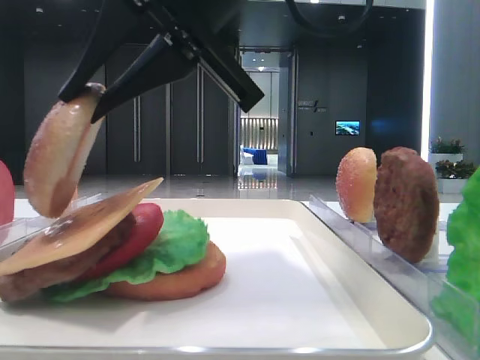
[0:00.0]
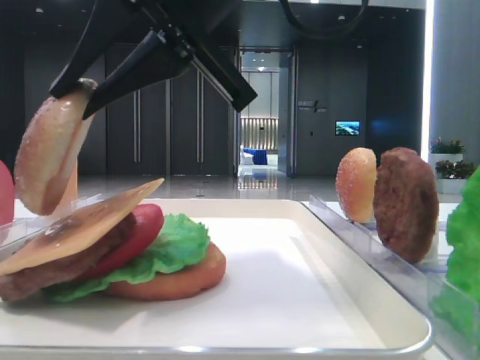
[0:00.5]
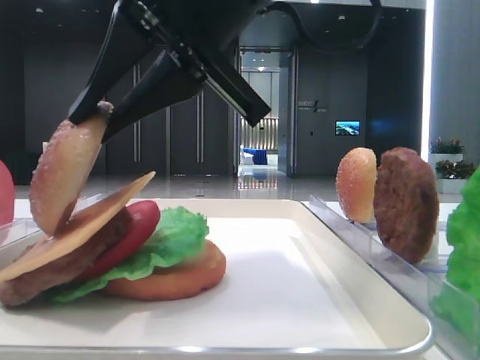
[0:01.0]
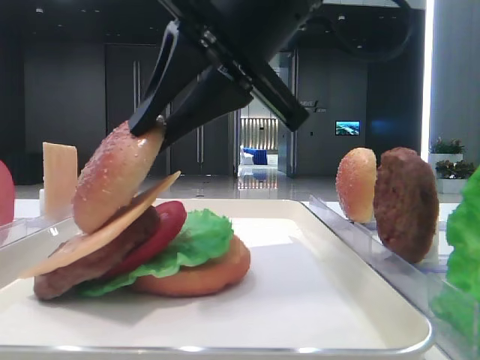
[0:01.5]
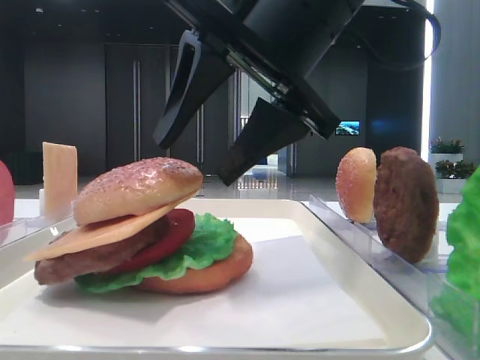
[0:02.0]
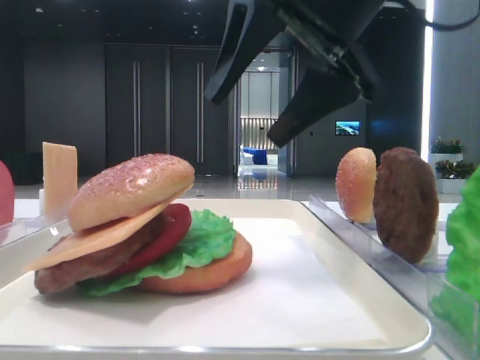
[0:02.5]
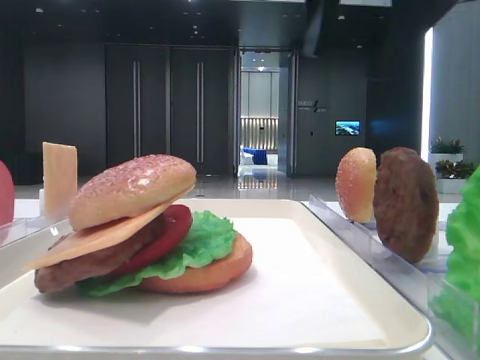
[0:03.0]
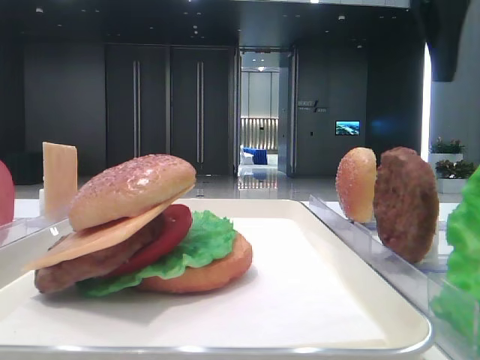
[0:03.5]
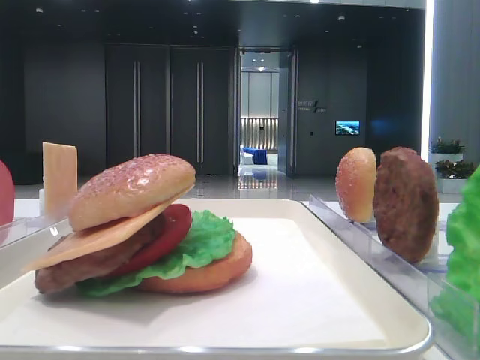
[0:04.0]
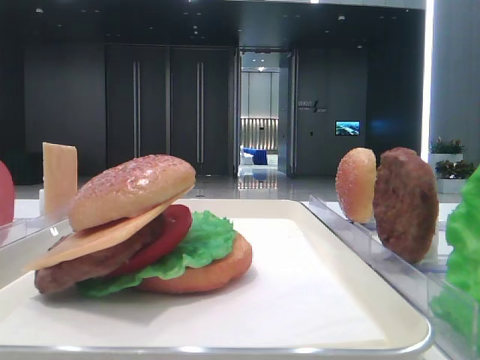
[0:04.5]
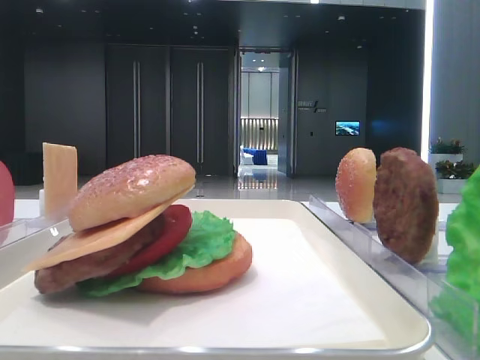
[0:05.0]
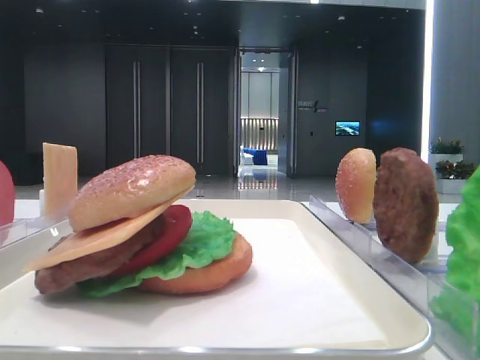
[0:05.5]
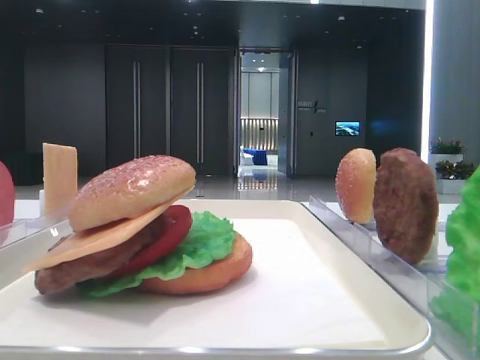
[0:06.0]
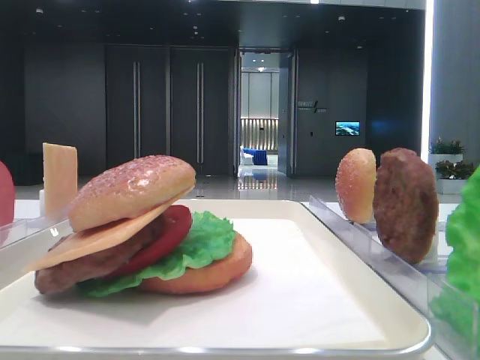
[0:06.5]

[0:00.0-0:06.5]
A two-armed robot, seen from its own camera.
Step, 0.0 to 2.0 s: Place the top bread slice on the cheese with the right hand.
0.0 to 2.0 s: The right gripper travels to the right by some 5 cm, and opens its fingers.
2.0 to 4.5 s: The right gripper travels to the right by approximately 25 cm.

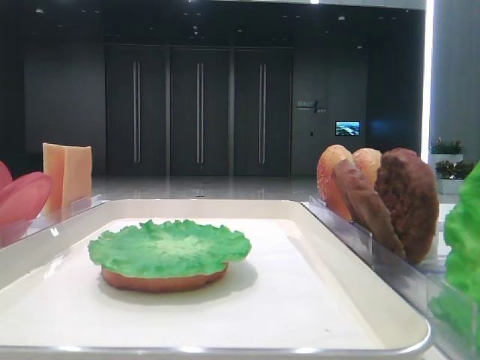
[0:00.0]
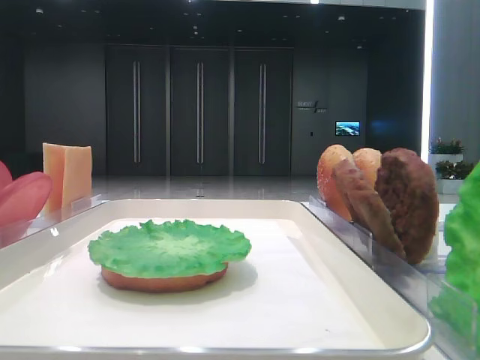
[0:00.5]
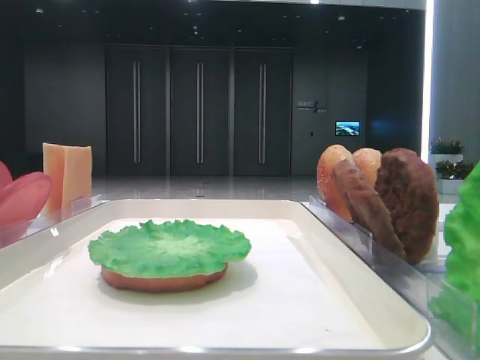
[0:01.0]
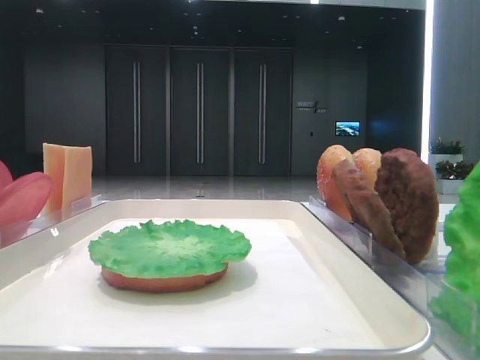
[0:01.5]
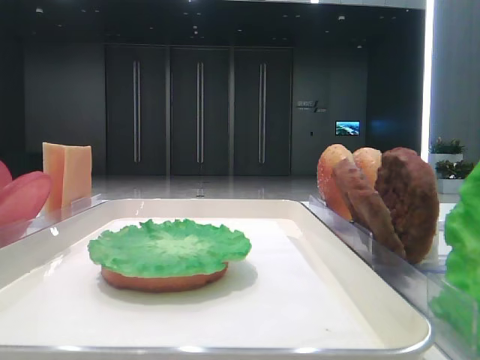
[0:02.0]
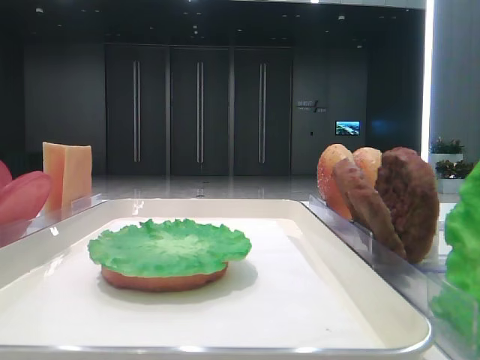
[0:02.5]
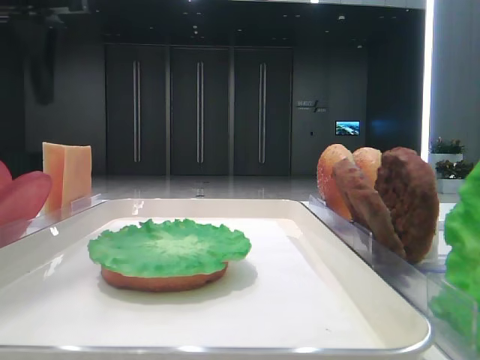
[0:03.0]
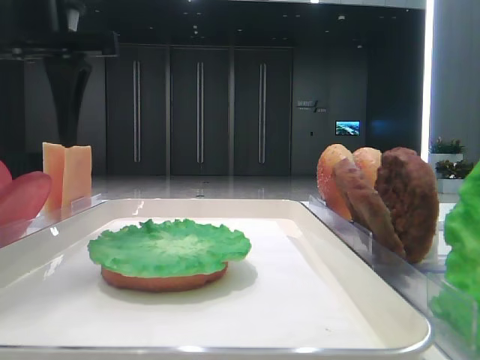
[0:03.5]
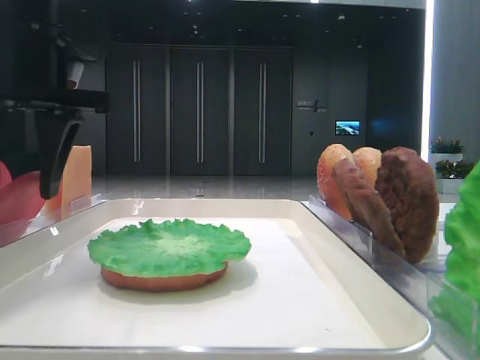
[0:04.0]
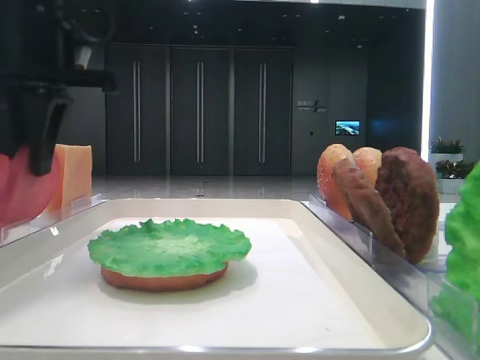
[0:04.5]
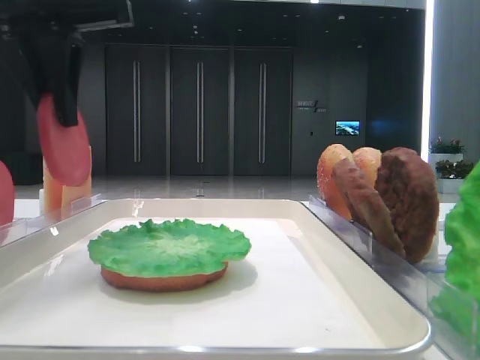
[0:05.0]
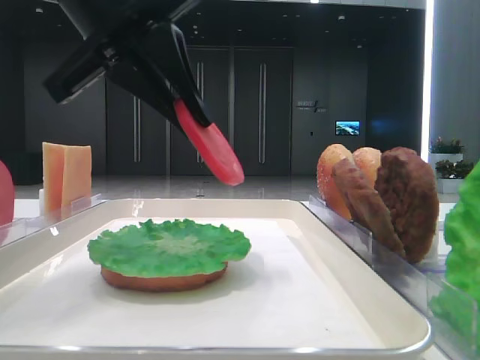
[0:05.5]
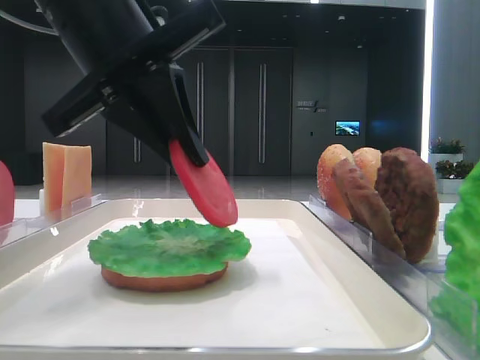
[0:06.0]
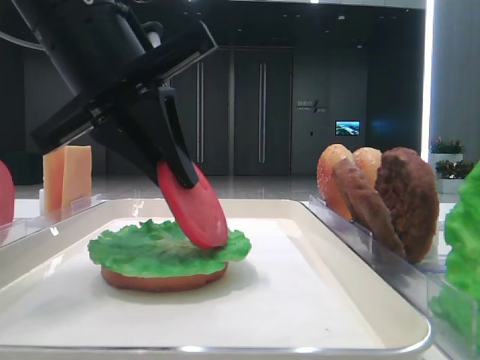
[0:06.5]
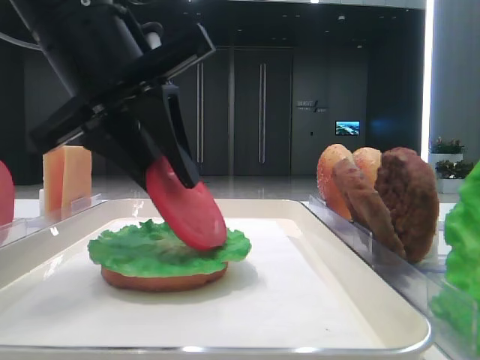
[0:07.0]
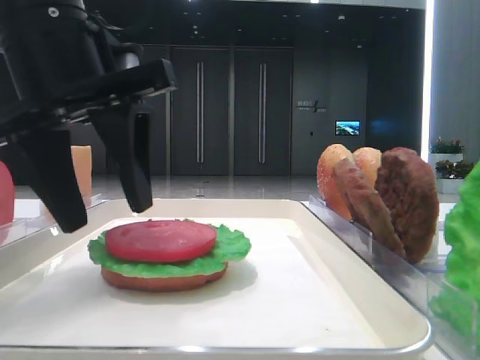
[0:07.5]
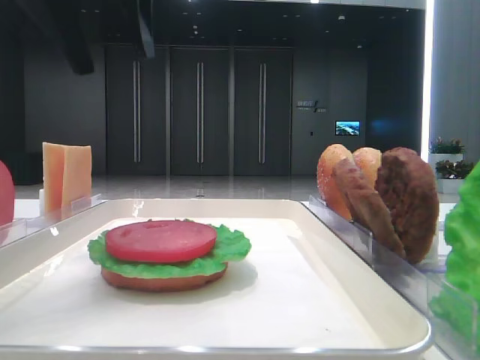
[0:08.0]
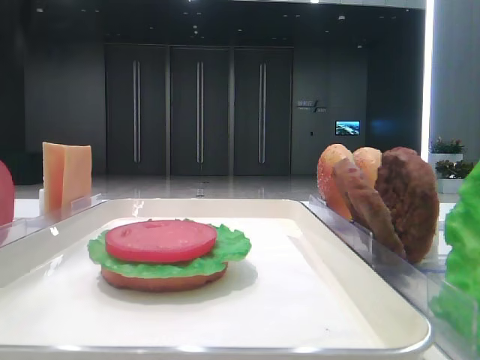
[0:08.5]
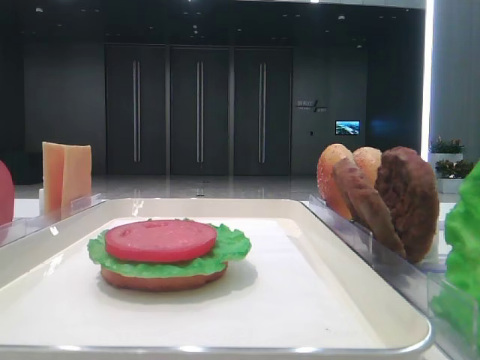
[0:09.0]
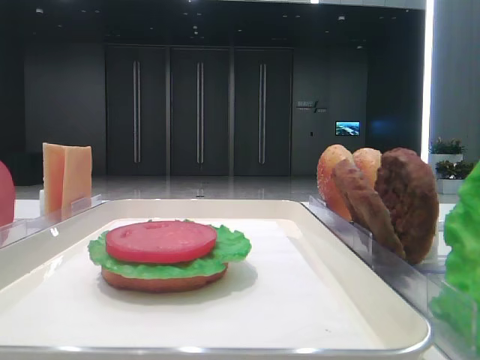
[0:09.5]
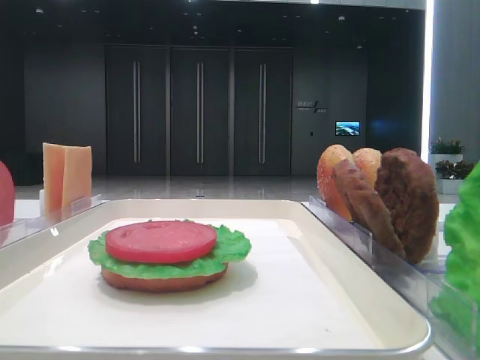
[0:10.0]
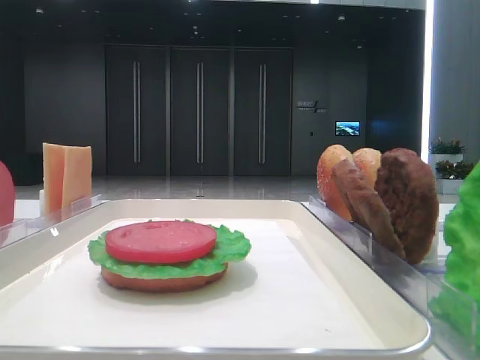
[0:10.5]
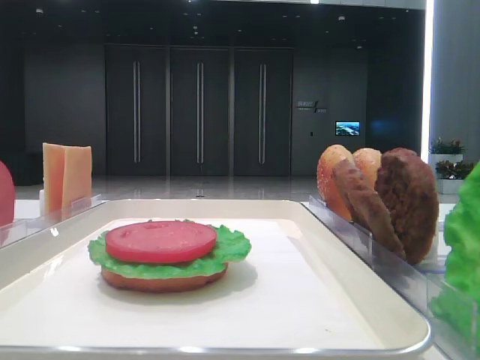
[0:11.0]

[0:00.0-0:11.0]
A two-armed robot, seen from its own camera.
Step, 0.0 to 4.0 s: Pick up the tomato slice with the left hand.
Step, 4.5 to 7.0 s: Place the tomato slice on the lettuce leaf with the left hand.
2.0 to 3.5 s: The left gripper is displaced to the right, forward and downward by about 20 cm.
3.5 to 5.5 s: The left gripper shifts about 5 cm to the right, and closes its fingers.
5.5 to 7.5 s: The left gripper opens its fingers.
7.5 to 9.0 s: The left gripper shifts roughly 20 cm to the left and upward.
9.0 to 11.0 s: The left gripper shifts approximately 30 cm backward.

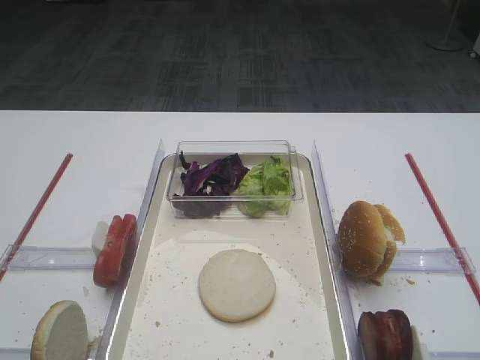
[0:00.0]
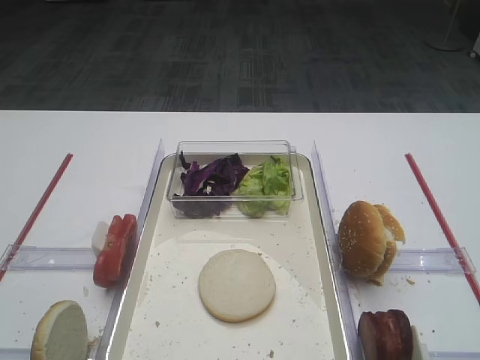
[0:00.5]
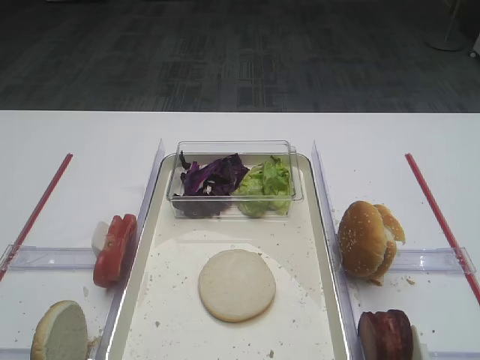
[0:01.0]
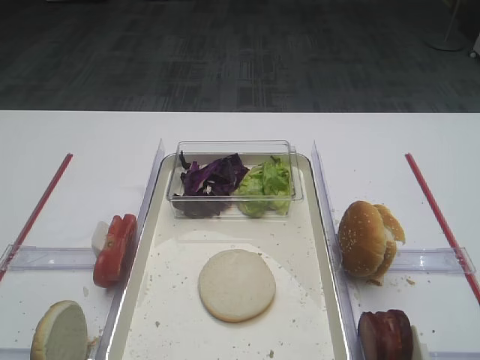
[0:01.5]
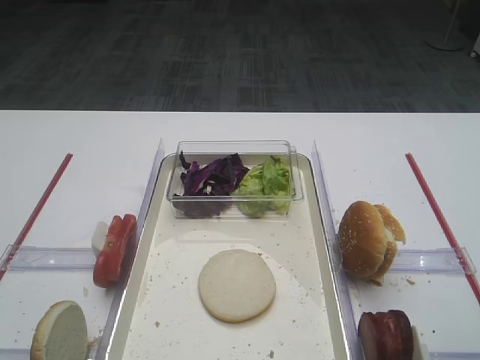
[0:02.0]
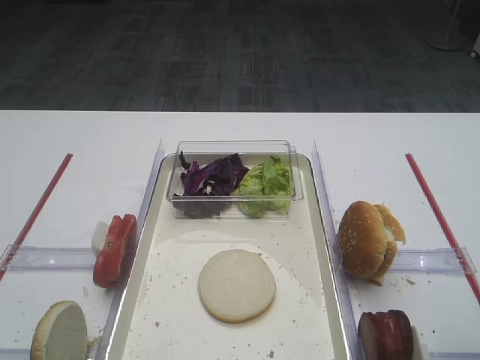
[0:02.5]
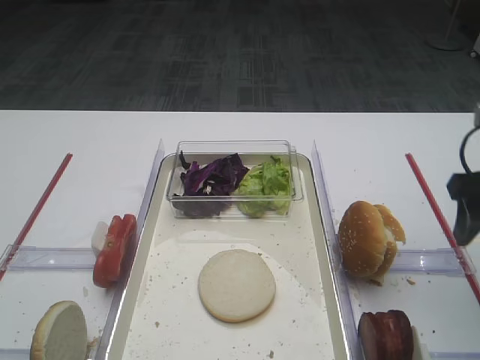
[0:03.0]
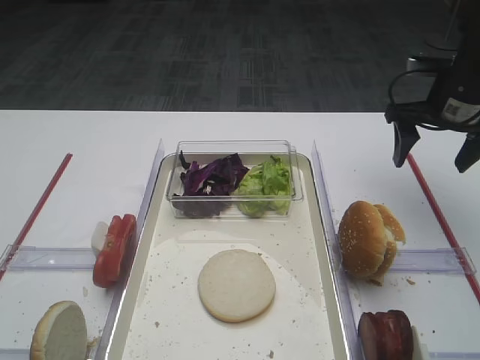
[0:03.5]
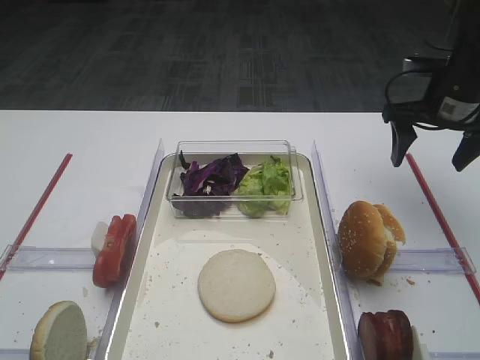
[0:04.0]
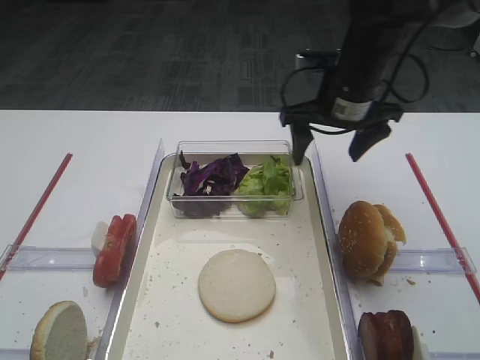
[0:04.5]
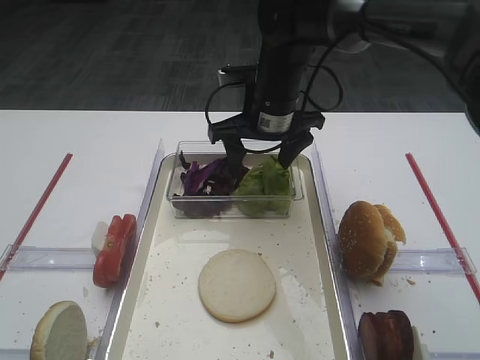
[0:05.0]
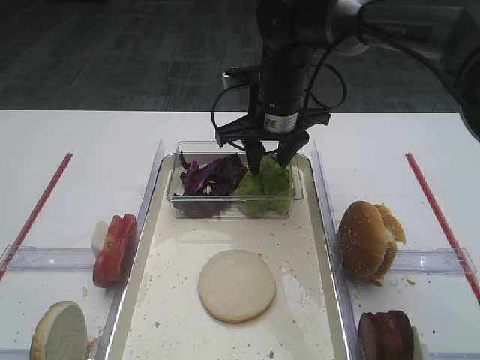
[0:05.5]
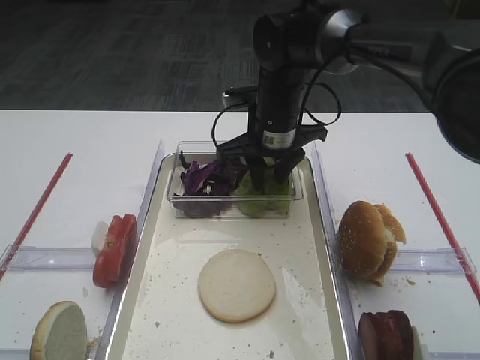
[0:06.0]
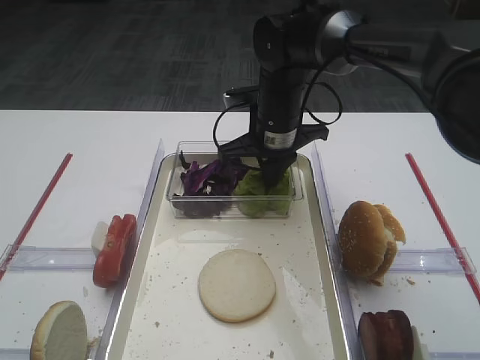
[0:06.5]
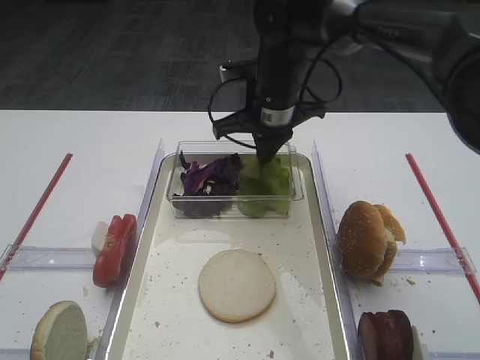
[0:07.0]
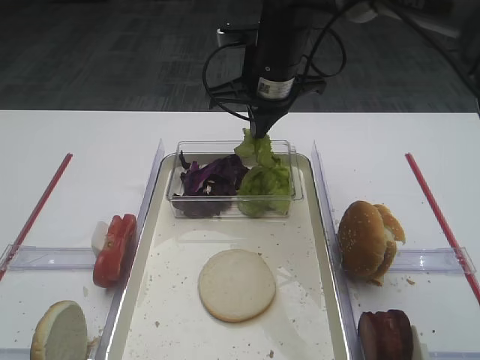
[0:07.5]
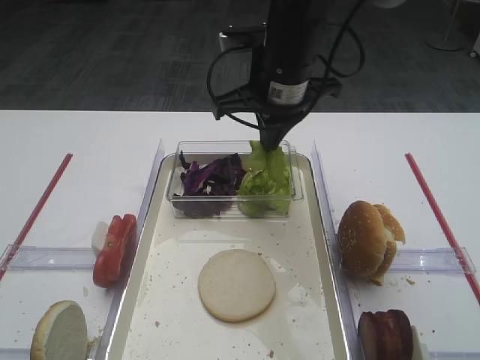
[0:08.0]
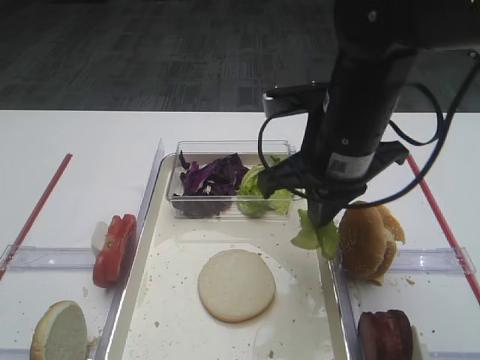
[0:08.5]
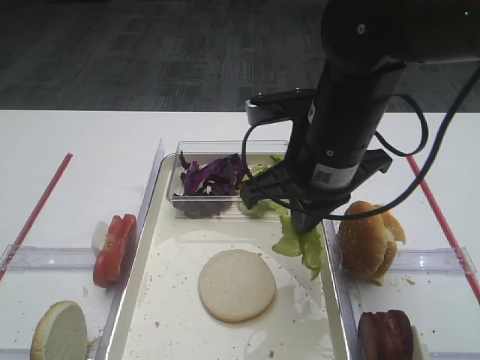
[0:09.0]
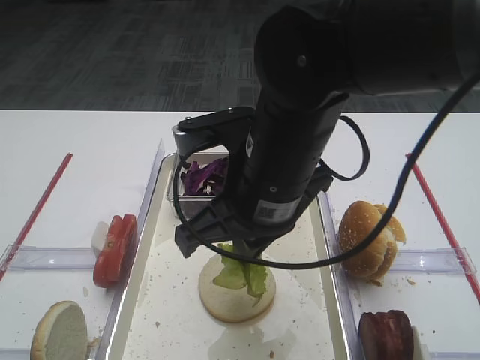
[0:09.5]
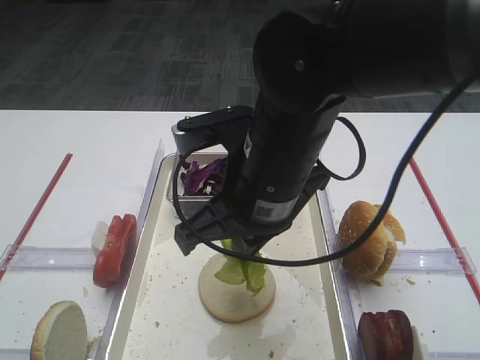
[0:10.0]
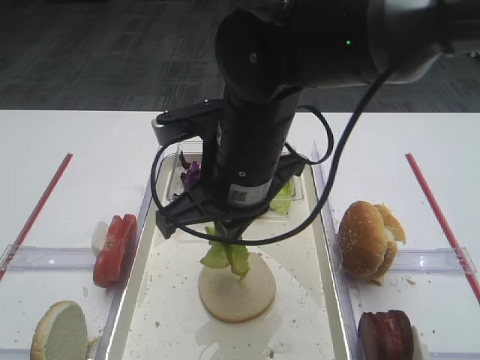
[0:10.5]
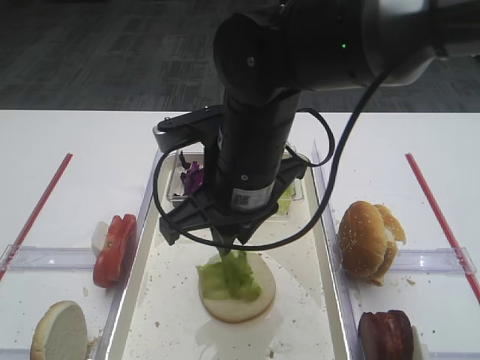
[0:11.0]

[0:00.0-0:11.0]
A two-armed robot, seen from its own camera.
Step, 0.0 to 7.0 s: Pick up the lettuce leaf with the right gripper.
2.0 to 3.5 s: The right gripper goes approximately 30 cm forward.
3.5 to 5.5 s: The right gripper travels to the left by approximately 20 cm, and closes up.
5.5 to 7.5 s: The right gripper closes.
7.5 to 9.0 s: The right gripper goes some 15 cm backward.
9.0 to 11.0 s: The right gripper moves to the left, approximately 10 cm.
